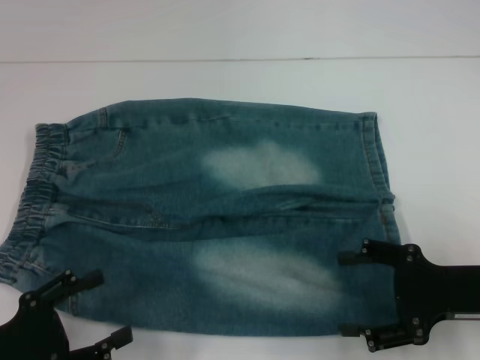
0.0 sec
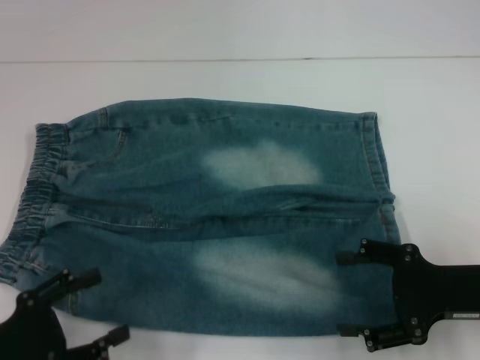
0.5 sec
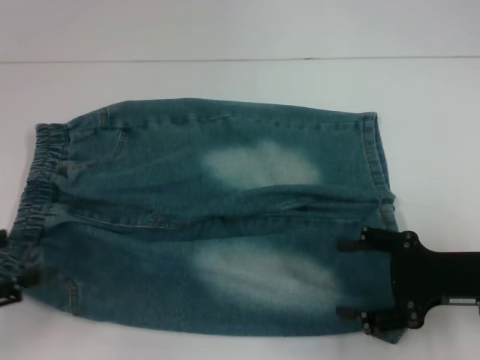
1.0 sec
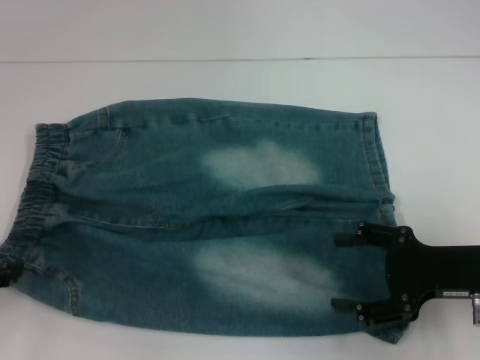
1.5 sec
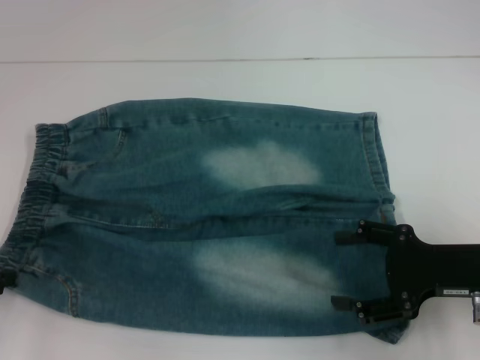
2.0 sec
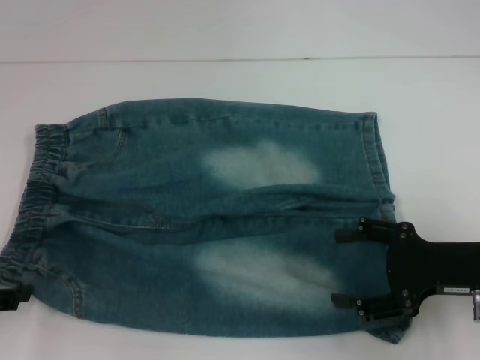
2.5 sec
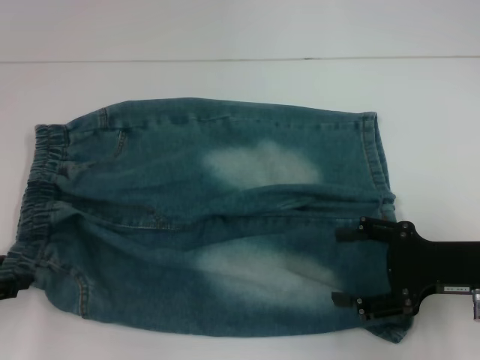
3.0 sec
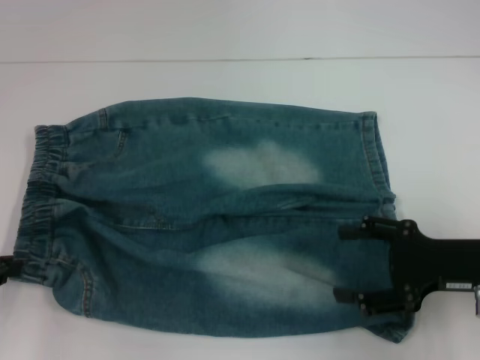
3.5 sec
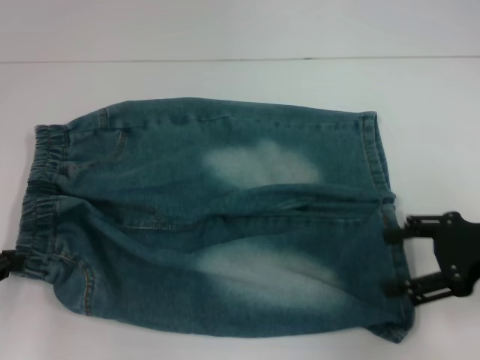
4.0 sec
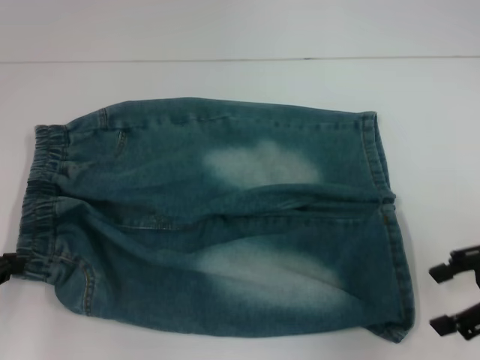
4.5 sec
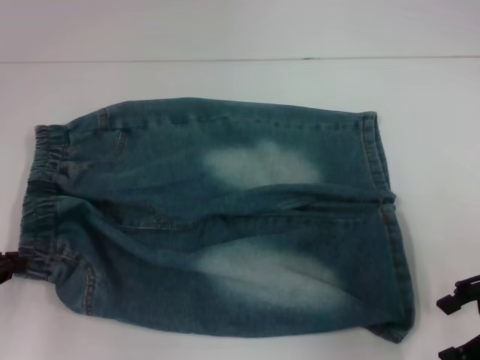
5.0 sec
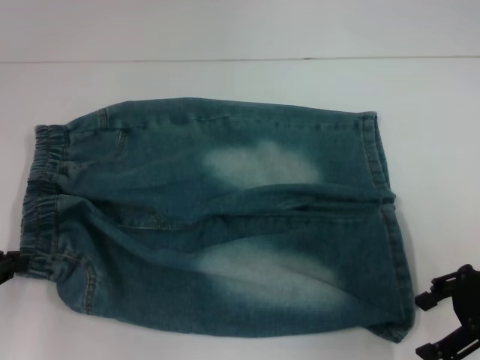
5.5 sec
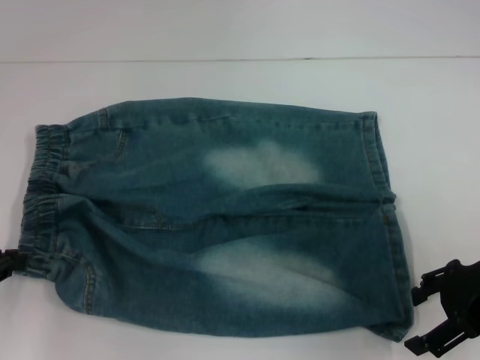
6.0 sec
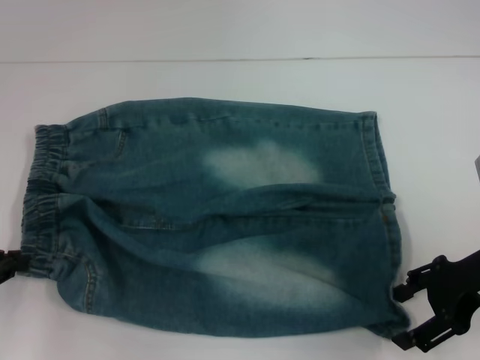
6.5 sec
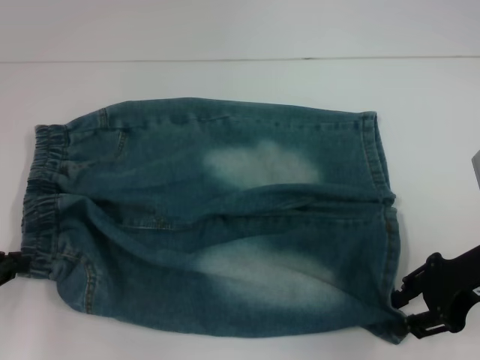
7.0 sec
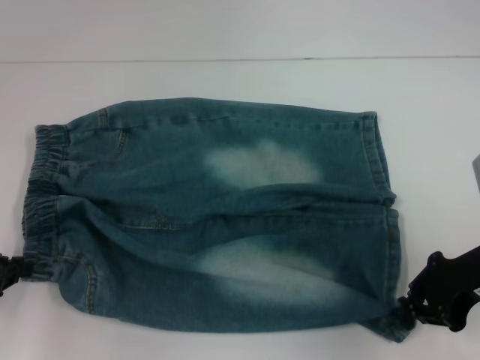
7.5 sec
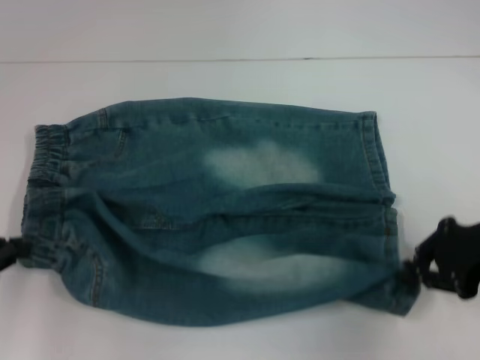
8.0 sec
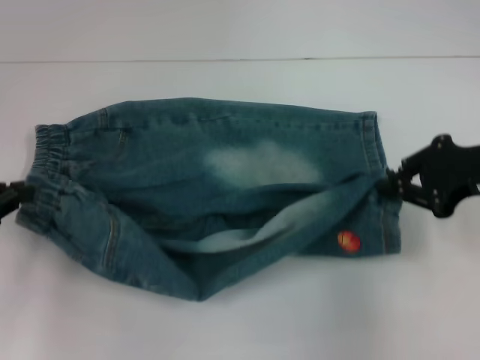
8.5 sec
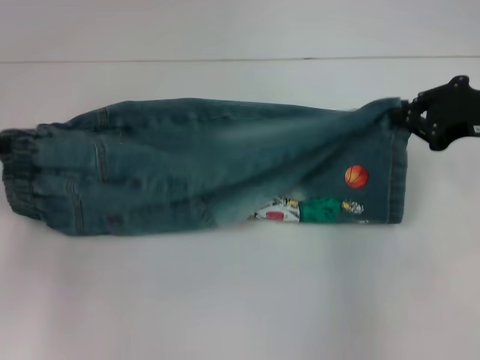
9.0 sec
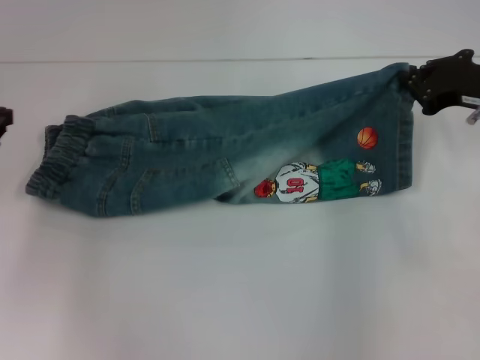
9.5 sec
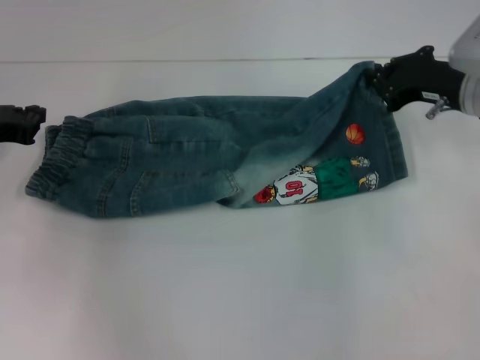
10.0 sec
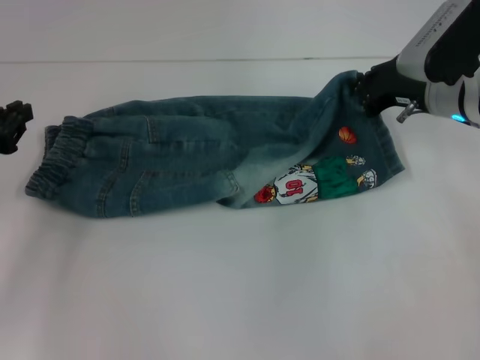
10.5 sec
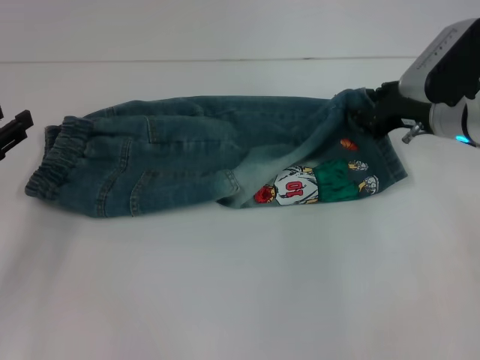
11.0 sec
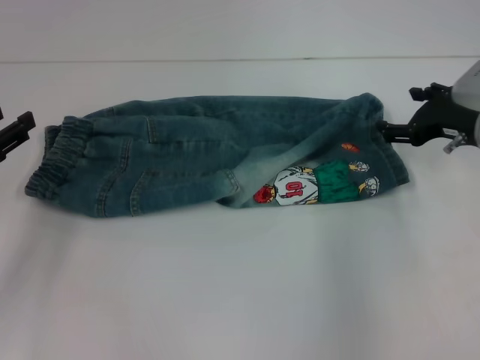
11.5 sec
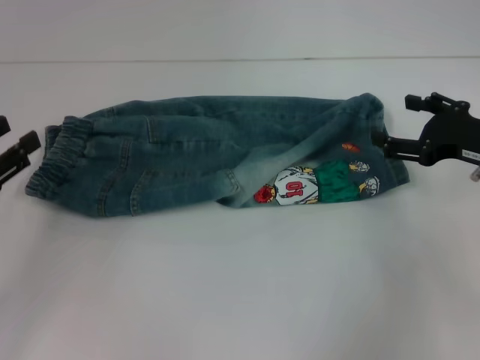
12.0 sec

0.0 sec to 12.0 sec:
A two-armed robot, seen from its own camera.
Step, 0.0 sec to 3.0 sec: Hold the lower left waistband with your left hand.
Step, 3.5 sec to 7.0 sec: Grab the lower right pant leg with your right hand.
Step, 7.5 sec to 9.0 sec: Fold upward with your left hand.
Step, 10.0 sec to 11.0 sec: Fold upward with your right hand.
0.0 sec to 2.0 sec: The left gripper goes some 10 cm forward, to the left and upward.
2.0 sec to 4.0 sec: The right gripper heads upward, covering roughly 5 cm. Meanwhile the left gripper closes its fingers.
6.0 sec to 8.0 sec: The right gripper closes its fingers.
8.0 sec to 10.0 sec: The grippers both shift forward by some 10 cm.
10.0 sec to 12.0 sec: The grippers both shift backward by some 10 cm. The left gripper opens its fingers. The right gripper opens.

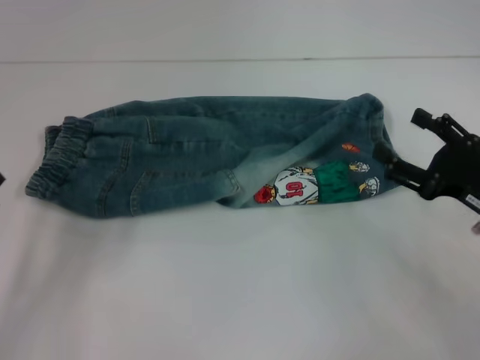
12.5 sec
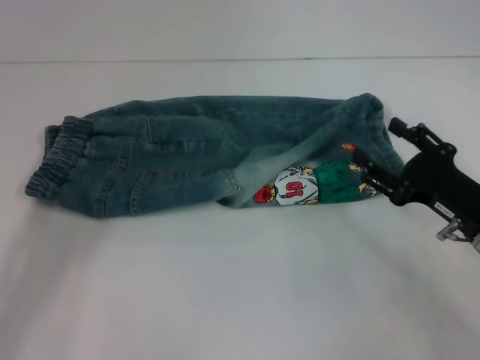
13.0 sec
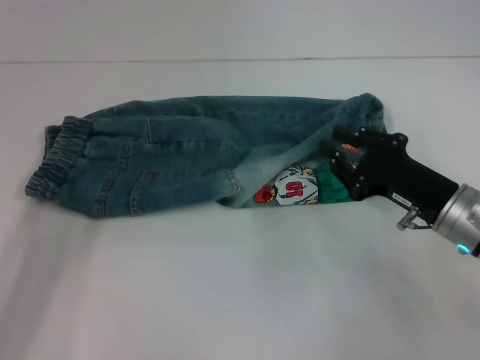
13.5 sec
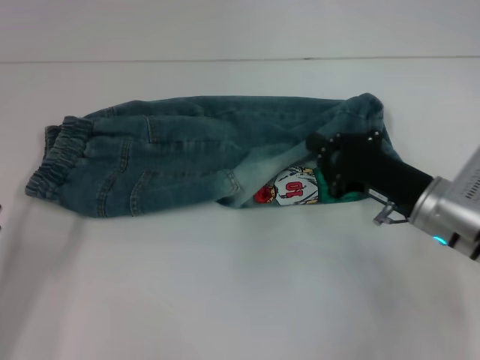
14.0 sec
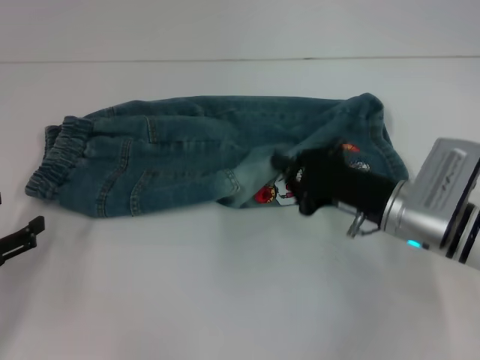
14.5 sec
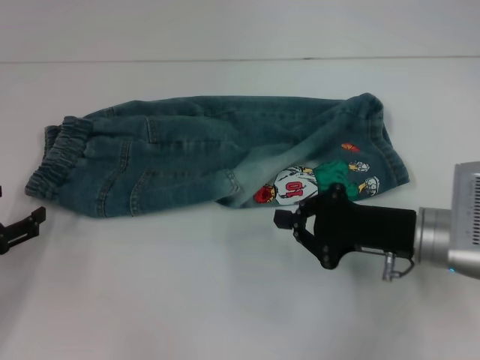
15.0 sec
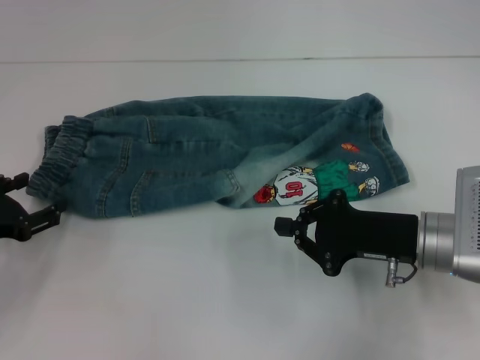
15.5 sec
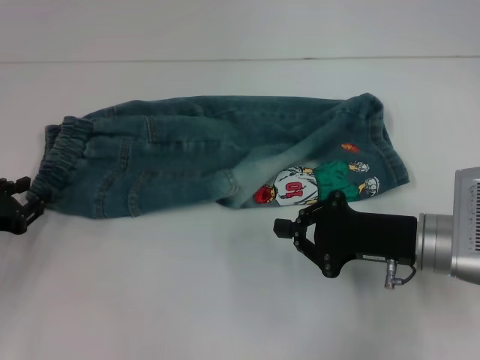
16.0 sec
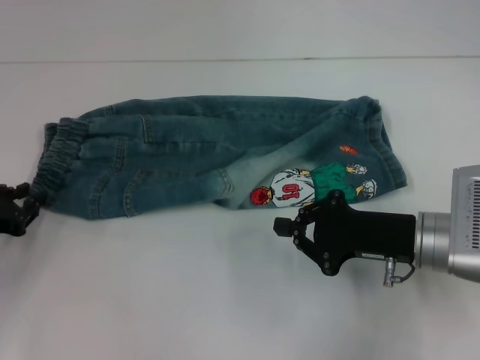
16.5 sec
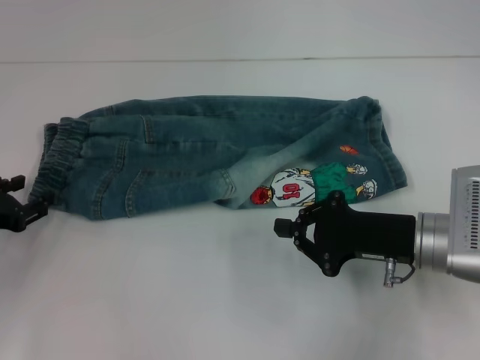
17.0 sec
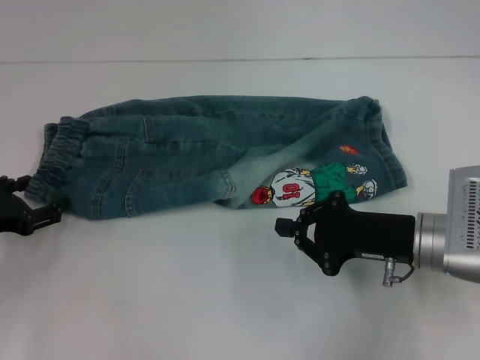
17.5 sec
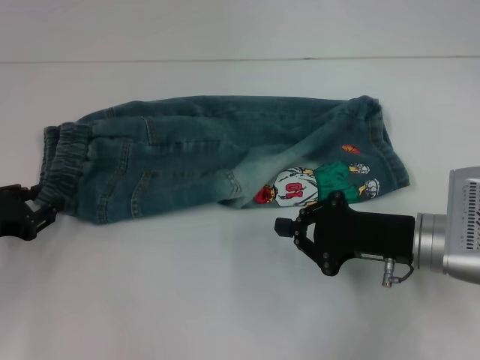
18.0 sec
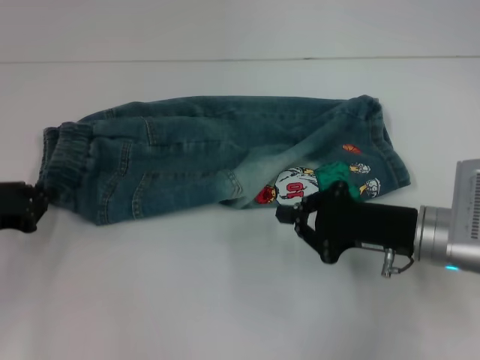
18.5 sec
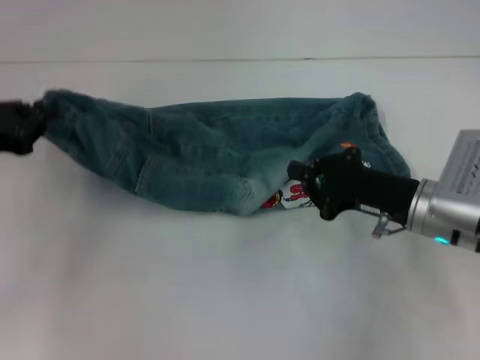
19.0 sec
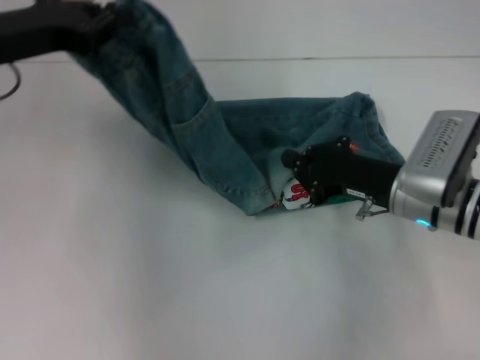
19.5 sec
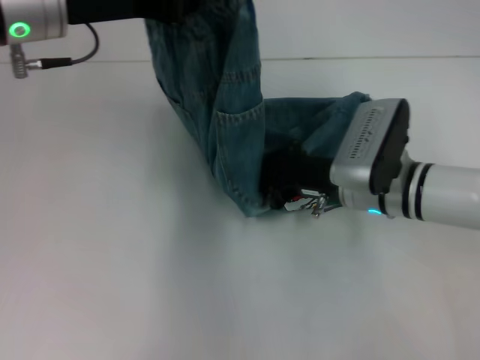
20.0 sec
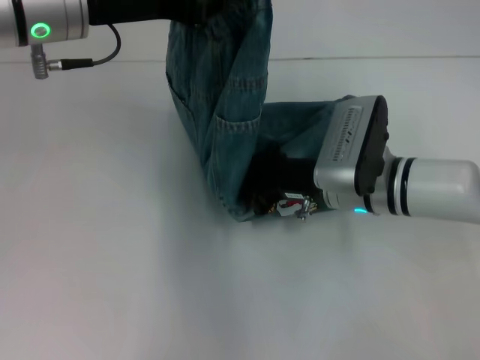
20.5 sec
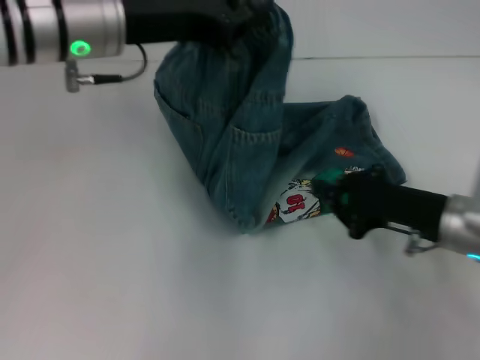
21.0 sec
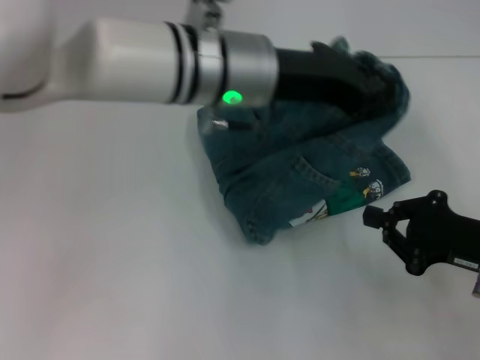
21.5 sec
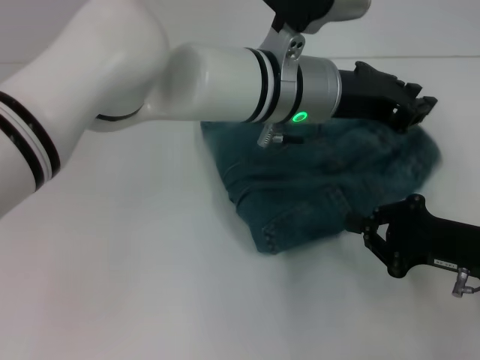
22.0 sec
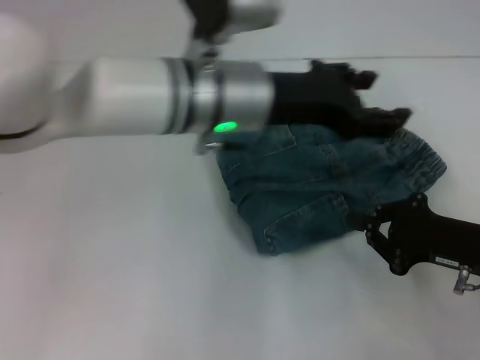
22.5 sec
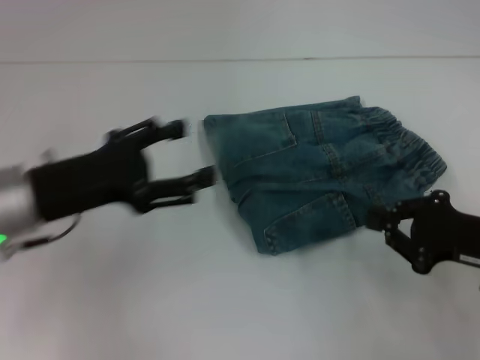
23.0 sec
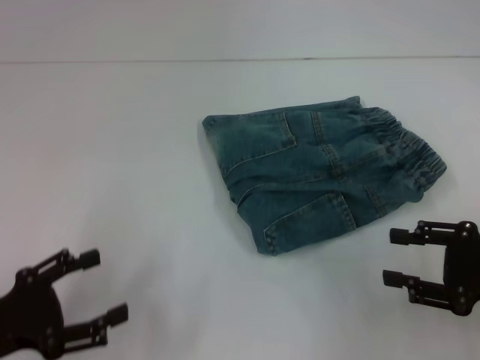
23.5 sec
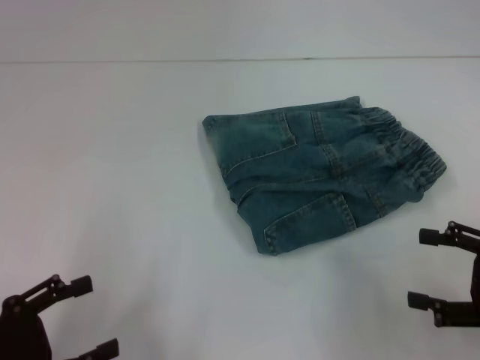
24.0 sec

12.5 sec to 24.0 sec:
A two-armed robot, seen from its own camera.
Step, 12.5 sec to 18.0 sec: Hold the waistband with your left hand.
Step, 18.5 sec to 20.5 sec: Press the middle of the pants with your right hand.
Step, 21.0 sec to 22.0 sec: Fold to the right with your left hand.
12.5 sec to 14.5 sec: The right gripper shifts some 10 cm to the left, and closes up.
14.5 sec to 16.5 sec: The left gripper is displaced forward by roughly 5 cm, and closes up.
16.5 sec to 18.5 sec: The left gripper opens, then closes again.
18.5 sec to 20.0 sec: The right gripper shifts about 10 cm to the left and forward. The left gripper travels upward, to the right and forward by approximately 25 cm.
20.0 sec to 22.0 sec: The left gripper goes roughly 20 cm to the right. Meanwhile the right gripper moves to the right and backward, some 15 cm.
22.0 sec to 24.0 sec: The left gripper travels to the left and backward by about 40 cm, and opens; the right gripper goes roughly 5 cm to the right, and opens its fingers.

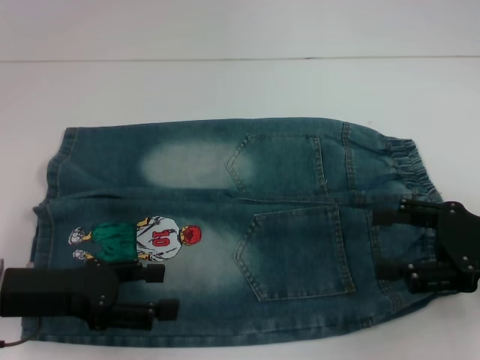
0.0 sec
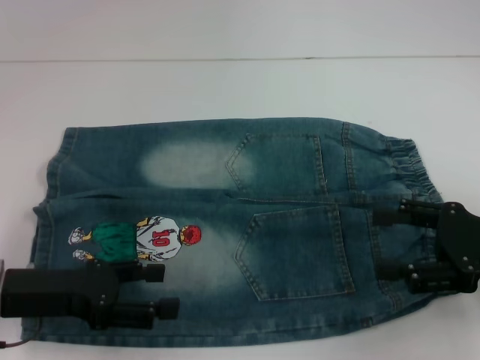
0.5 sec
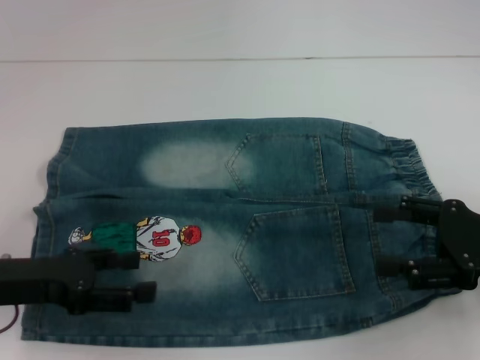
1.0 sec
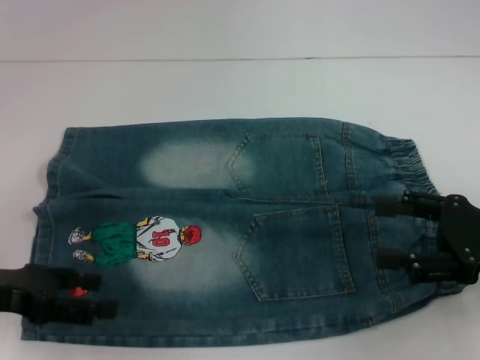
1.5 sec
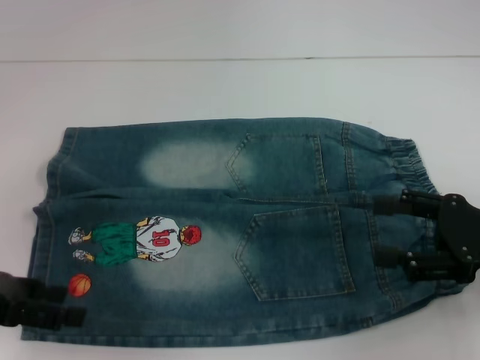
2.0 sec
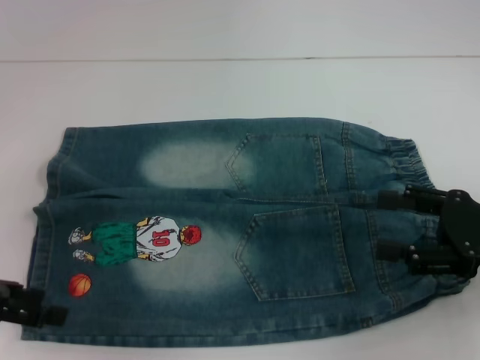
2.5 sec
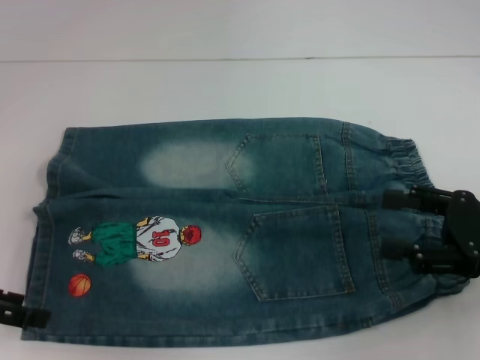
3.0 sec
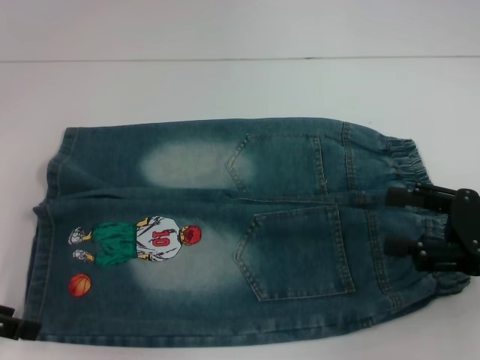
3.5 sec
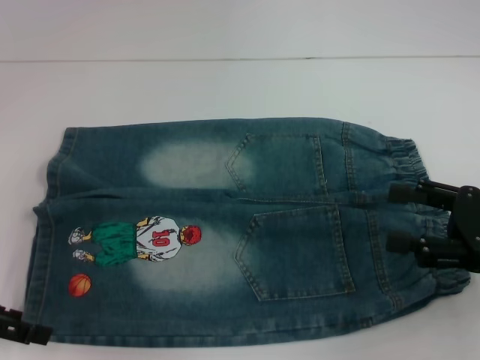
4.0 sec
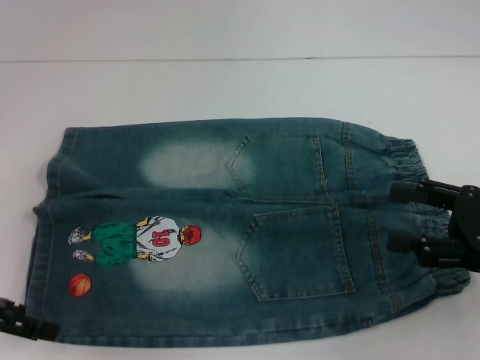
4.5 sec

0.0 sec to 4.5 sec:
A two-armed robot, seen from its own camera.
0.0 sec to 2.0 sec: The left gripper is displaced to the left by approximately 5 cm.
2.0 sec to 4.5 sec: The grippers stay close to where they were, moving slightly.
